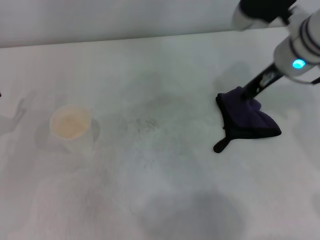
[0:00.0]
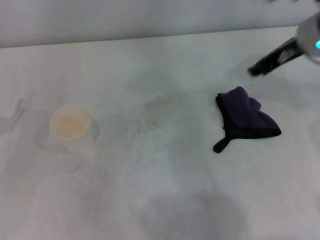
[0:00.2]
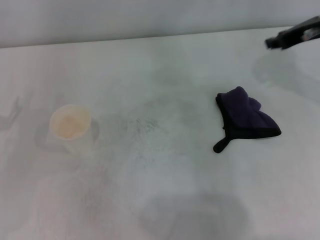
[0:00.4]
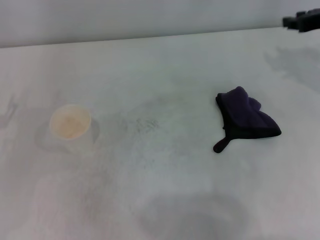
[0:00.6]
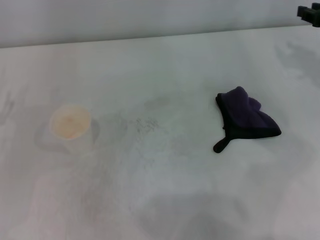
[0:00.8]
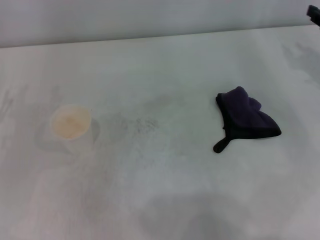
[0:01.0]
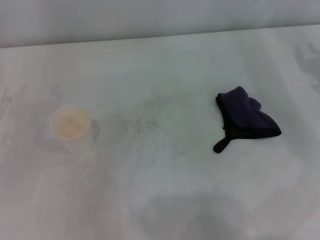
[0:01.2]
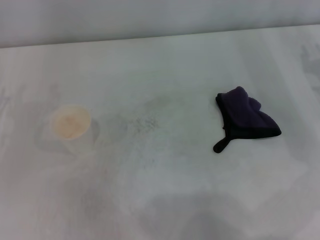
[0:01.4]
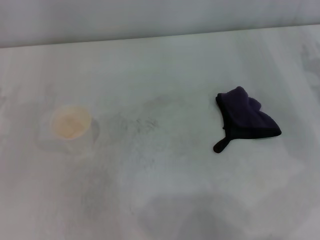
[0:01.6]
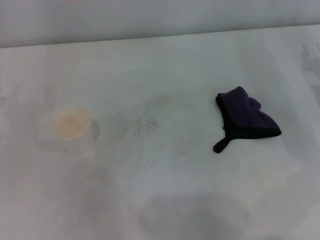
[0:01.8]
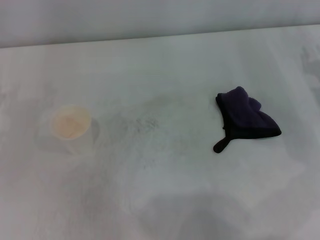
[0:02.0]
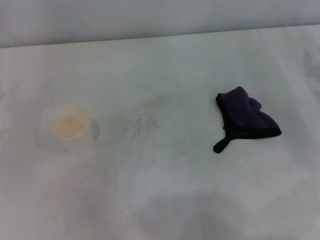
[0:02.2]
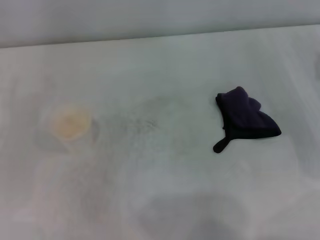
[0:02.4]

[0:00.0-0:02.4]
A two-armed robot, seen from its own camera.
0:00.0 to 0:01.2: The right gripper moves to the right and downward, roughly 20 cm.
